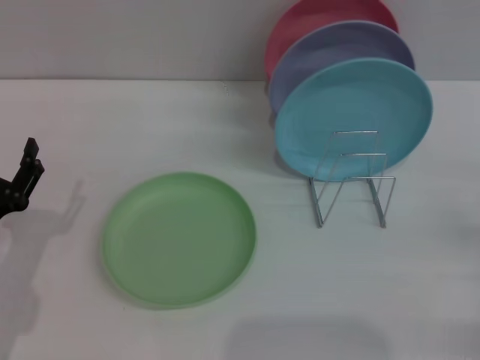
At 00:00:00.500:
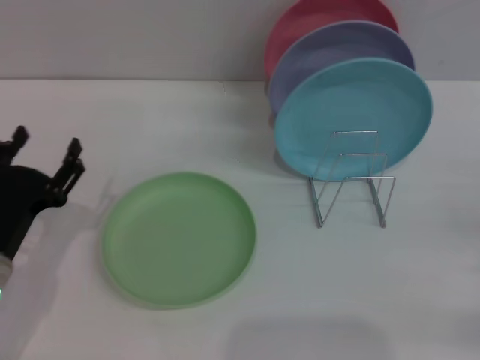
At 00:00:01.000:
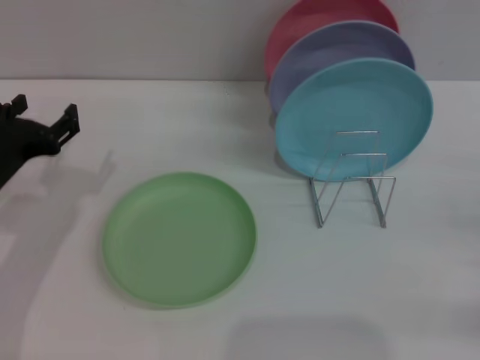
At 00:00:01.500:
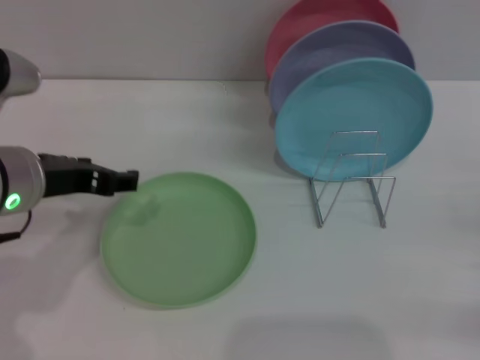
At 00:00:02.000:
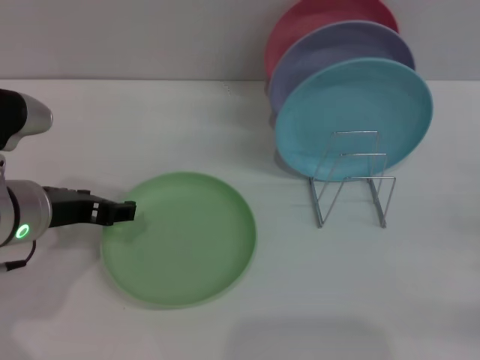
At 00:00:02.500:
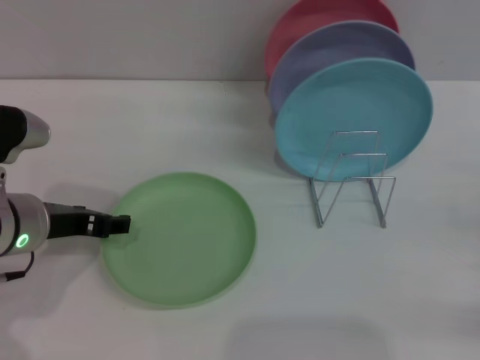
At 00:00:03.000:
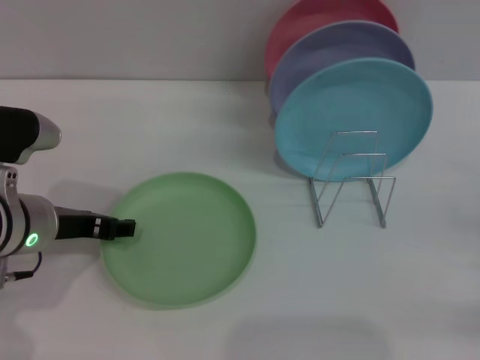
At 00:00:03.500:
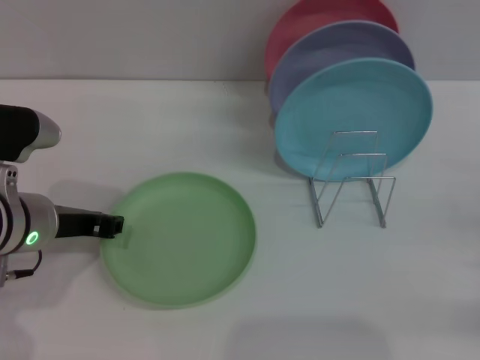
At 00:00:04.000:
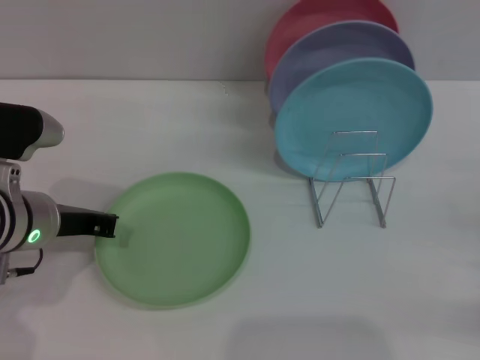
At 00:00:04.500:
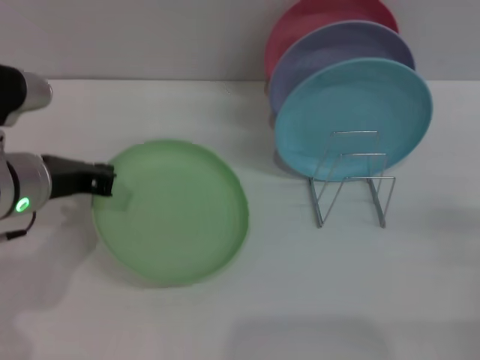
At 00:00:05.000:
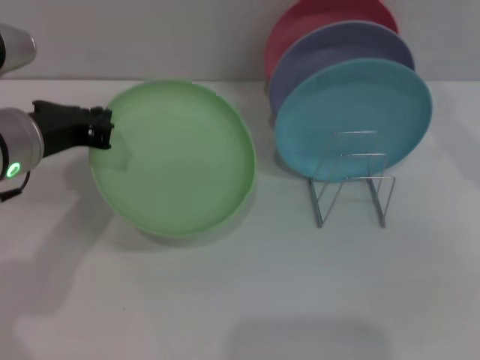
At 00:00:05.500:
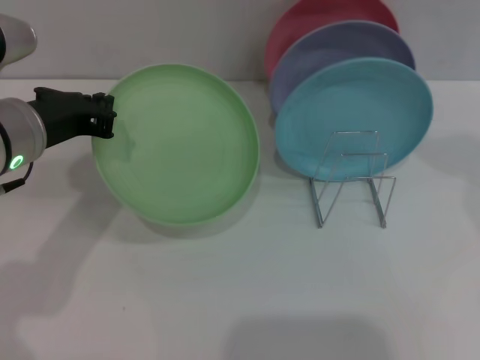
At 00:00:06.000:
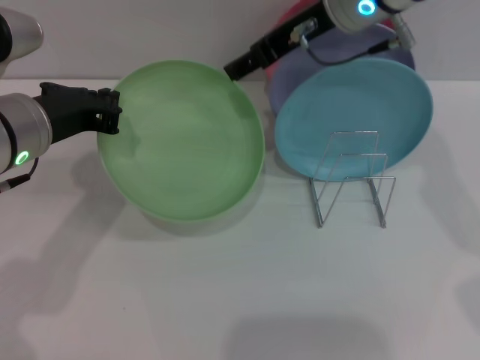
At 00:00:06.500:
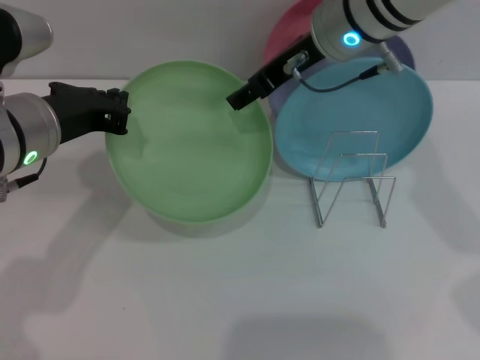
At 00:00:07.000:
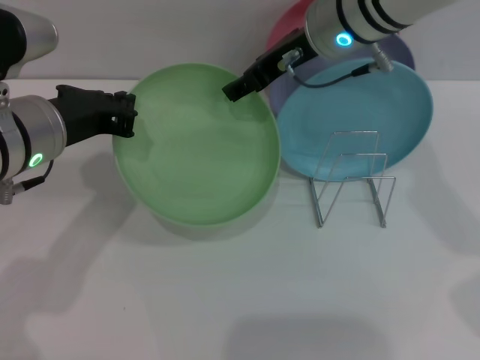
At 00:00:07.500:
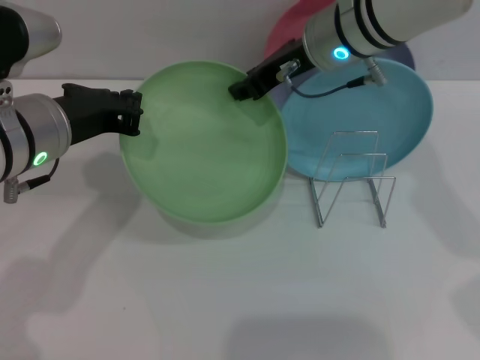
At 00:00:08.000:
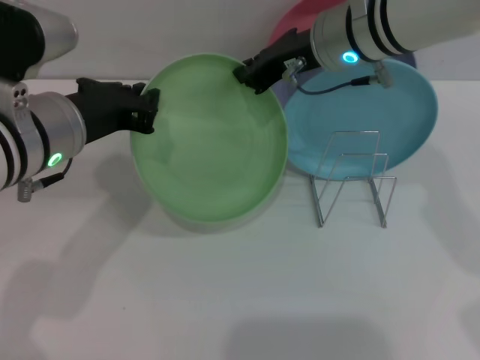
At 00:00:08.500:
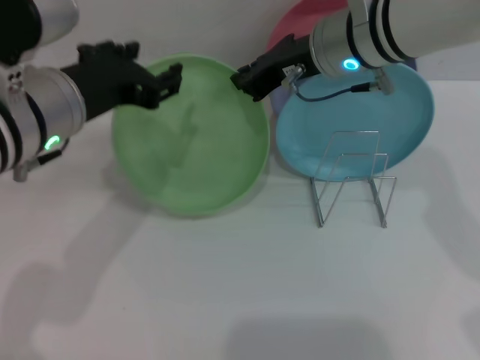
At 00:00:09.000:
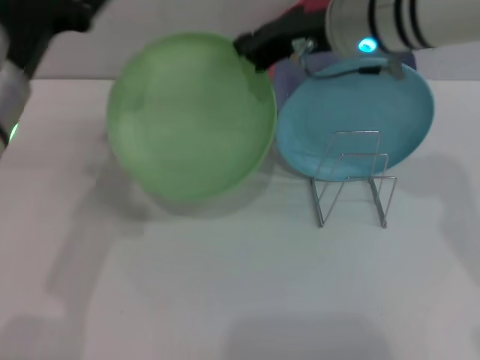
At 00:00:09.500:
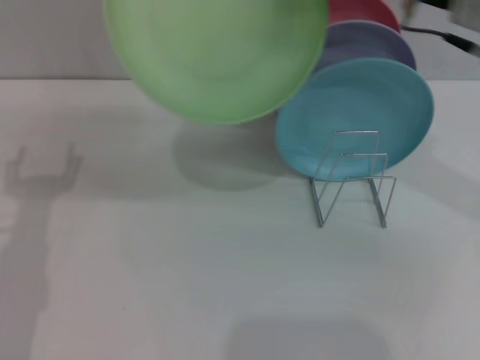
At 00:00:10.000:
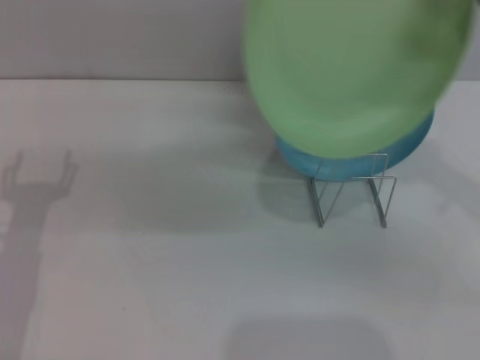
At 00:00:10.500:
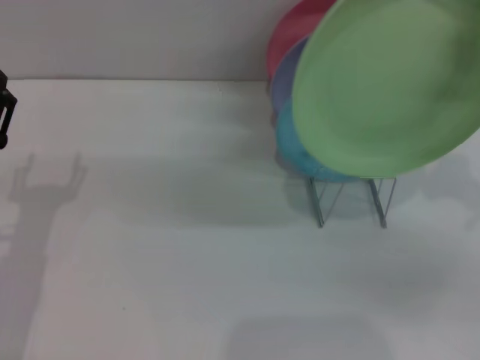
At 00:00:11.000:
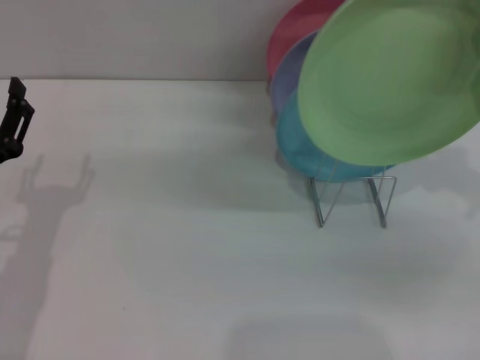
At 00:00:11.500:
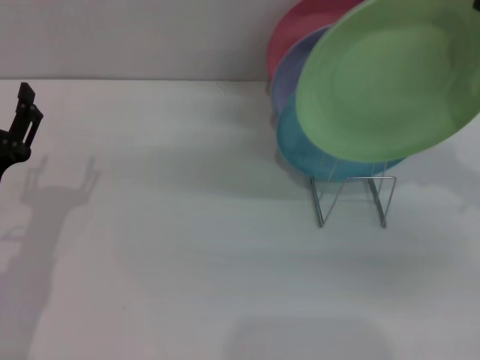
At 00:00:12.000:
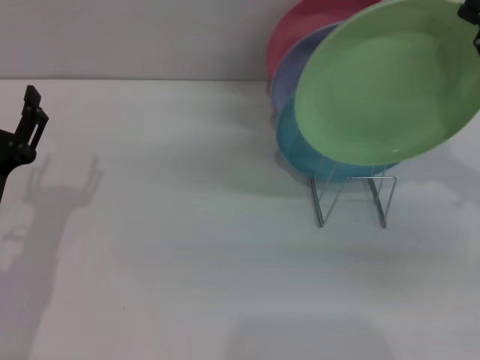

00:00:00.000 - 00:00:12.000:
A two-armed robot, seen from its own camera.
Task of the whole recording: Grip the plate with one hand, pass it to the other, then set it on the shelf.
Step, 00:00:00.000 - 00:00:05.000: Pick up the plate with the left gripper.
Step, 00:00:05.500 - 00:00:08.500: Pass the plate from the left gripper to the right gripper.
00:00:00.000 - 00:00:02.000: The left gripper shifts roughly 15 cm upward, to the right and forward.
00:00:02.000 - 00:00:04.000: The left gripper closes its fingers.
00:00:04.000 - 00:00:06.000: The right gripper travels to the left, upward and forward by approximately 40 cm. Meanwhile the left gripper heads upward, covering some 10 cm.
00:00:06.000 - 00:00:08.000: The right gripper closes up.
00:00:08.000 - 00:00:10.000: The right gripper is displaced to the right and backward by approximately 25 cm. The left gripper moves downward, to the left and backward, roughly 15 cm, and opens.

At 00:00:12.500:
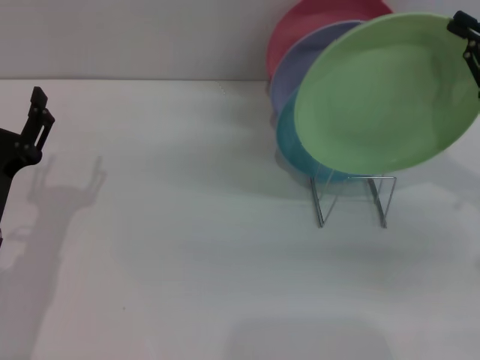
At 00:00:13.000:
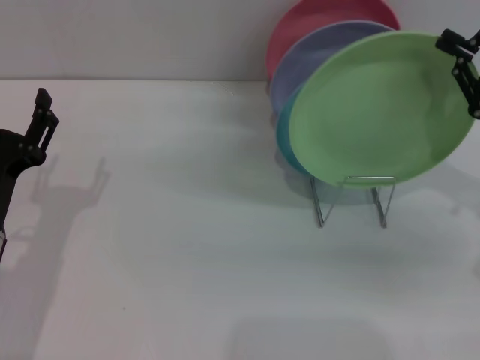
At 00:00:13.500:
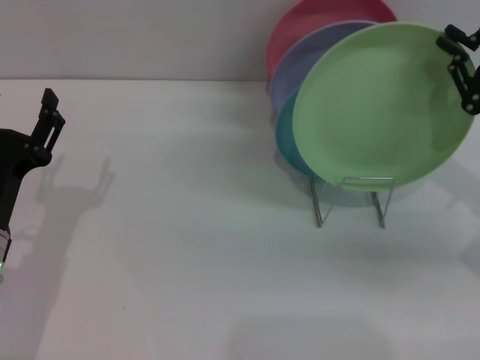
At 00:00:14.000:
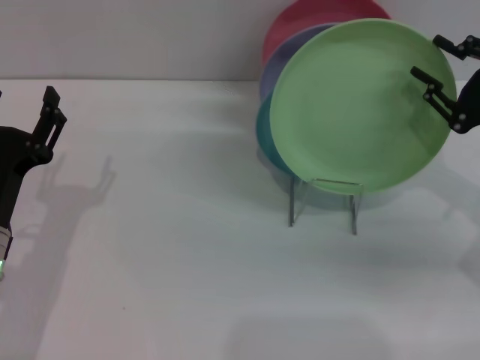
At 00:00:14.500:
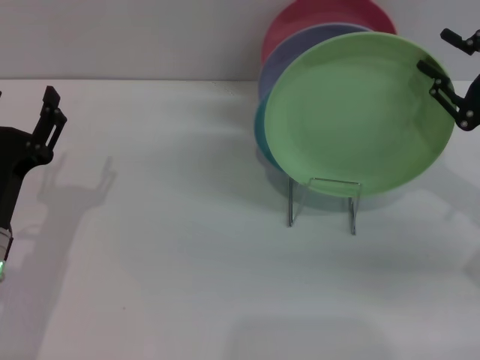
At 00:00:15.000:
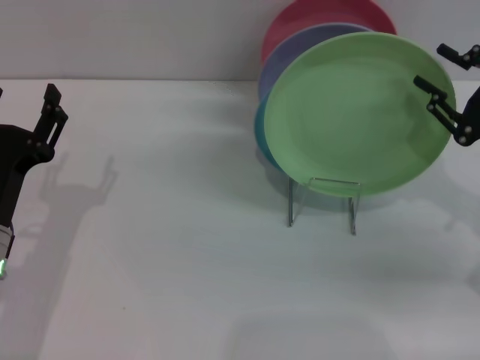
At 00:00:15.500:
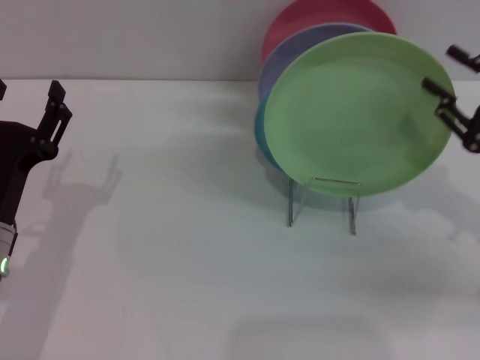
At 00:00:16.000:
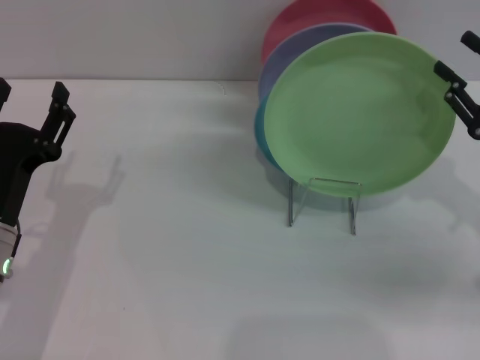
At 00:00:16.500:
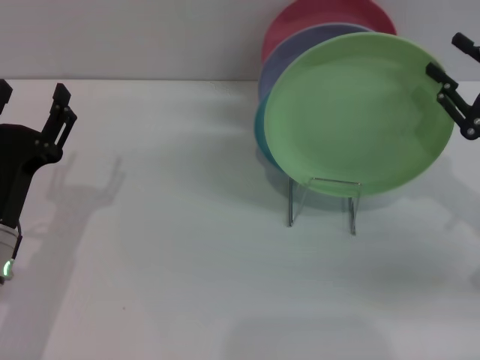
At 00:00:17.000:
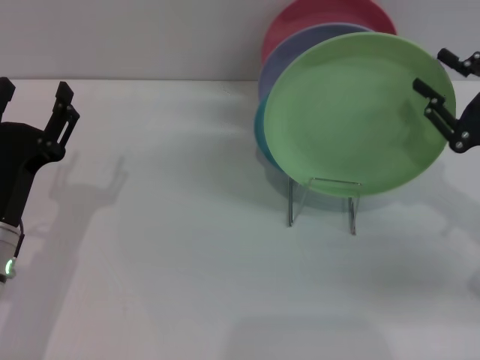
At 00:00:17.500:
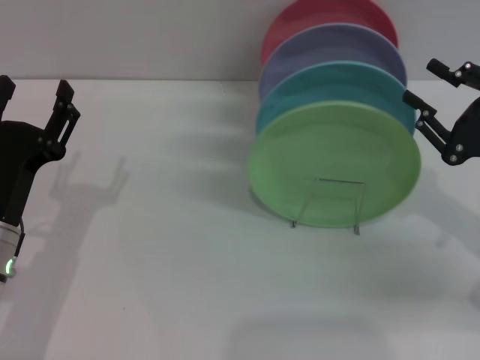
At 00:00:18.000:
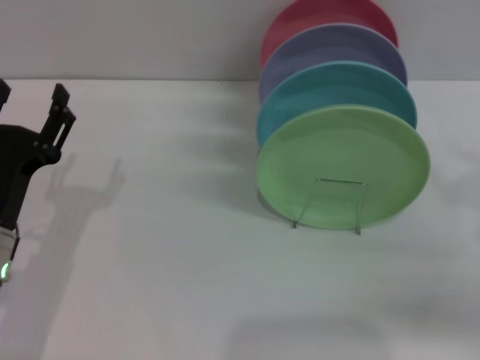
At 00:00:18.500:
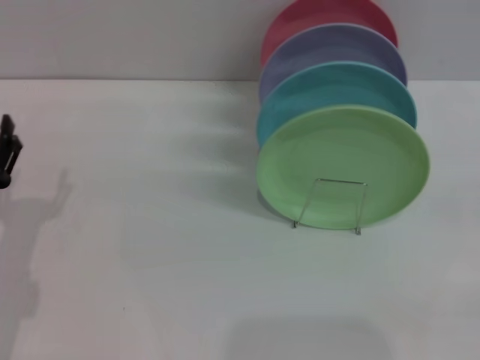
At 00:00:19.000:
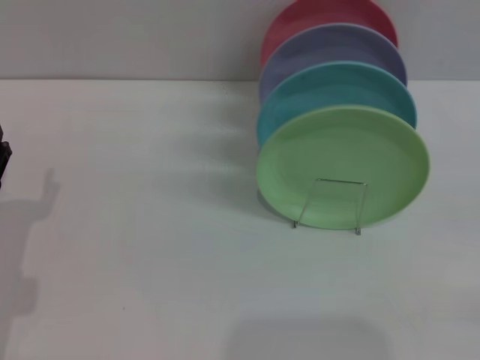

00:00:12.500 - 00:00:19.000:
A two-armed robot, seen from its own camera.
Task of the whole recording: Grip the plate with one hand, pass it to the other, then set it on the shelf.
Step, 00:00:12.500 - 00:00:17.500: Place the plate on the shelf with the right gripper.
00:00:12.500 - 00:00:14.500: The right gripper opens up.
00:00:14.500 - 00:00:17.000: There are only small adjustments of the grippers.
00:00:17.000 - 00:00:19.000: The left gripper shifts by roughly 5 cm. The right gripper shifts some 15 cm to the right, backward and downward, and opens its fingers.
